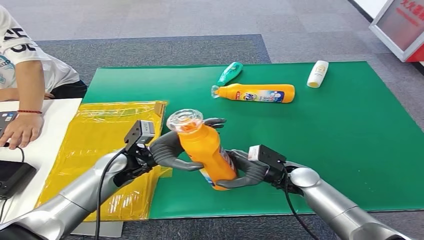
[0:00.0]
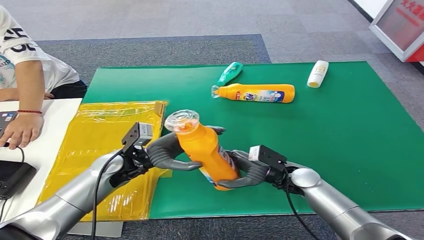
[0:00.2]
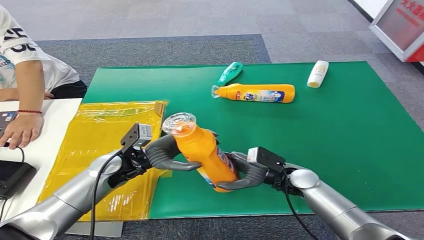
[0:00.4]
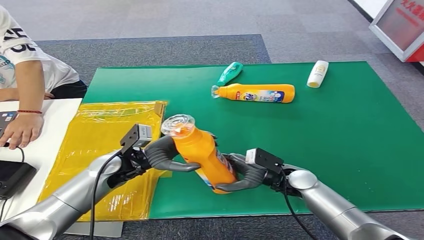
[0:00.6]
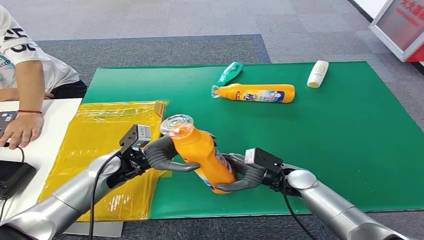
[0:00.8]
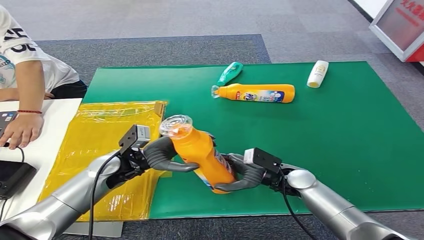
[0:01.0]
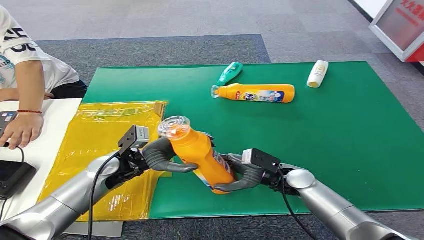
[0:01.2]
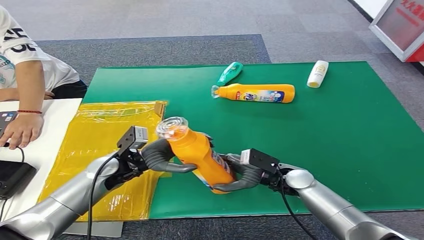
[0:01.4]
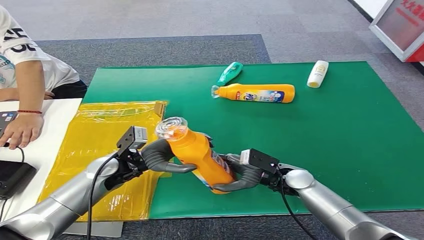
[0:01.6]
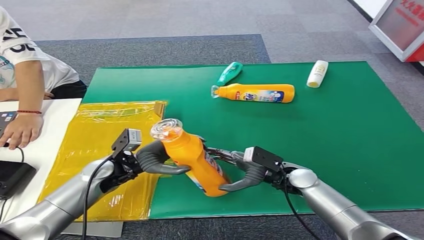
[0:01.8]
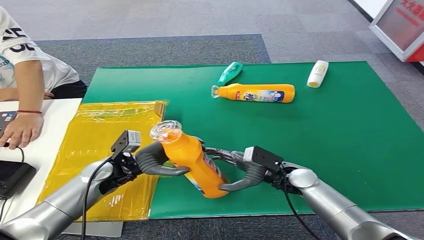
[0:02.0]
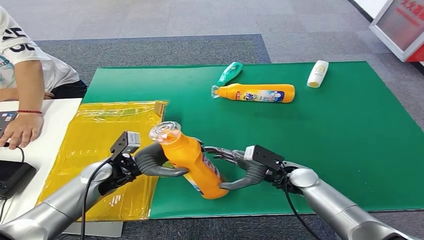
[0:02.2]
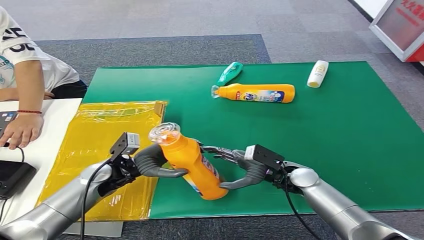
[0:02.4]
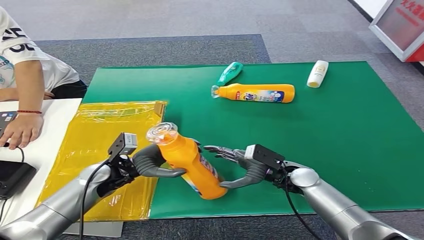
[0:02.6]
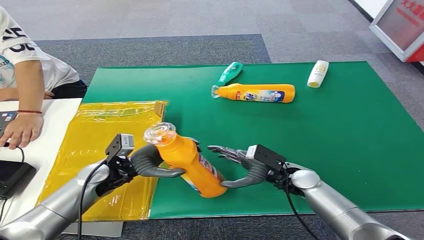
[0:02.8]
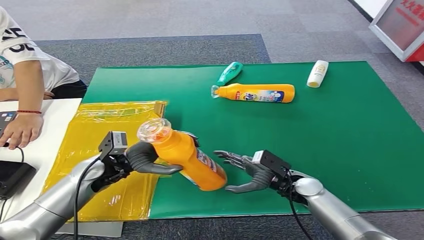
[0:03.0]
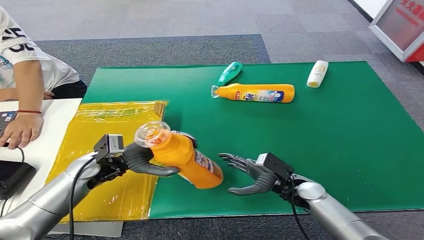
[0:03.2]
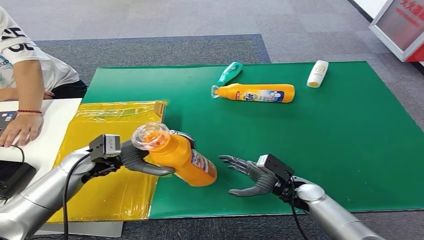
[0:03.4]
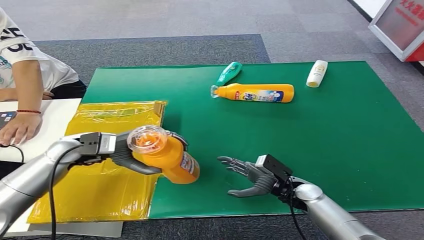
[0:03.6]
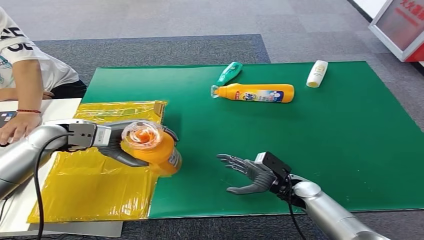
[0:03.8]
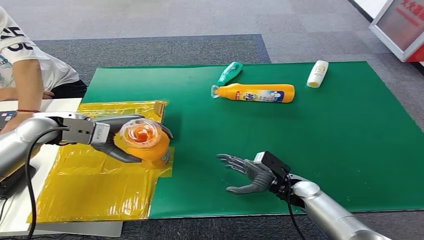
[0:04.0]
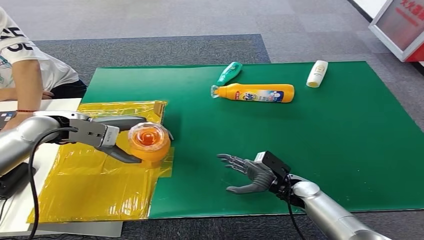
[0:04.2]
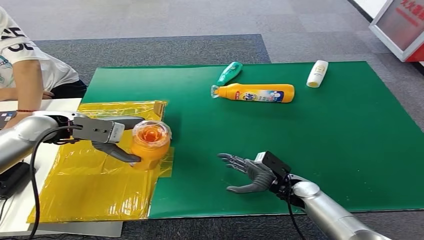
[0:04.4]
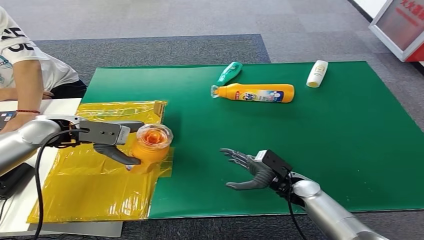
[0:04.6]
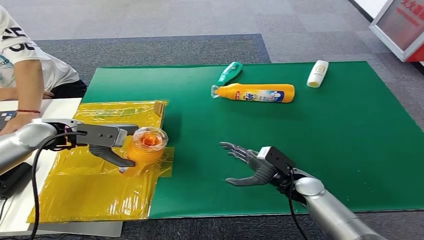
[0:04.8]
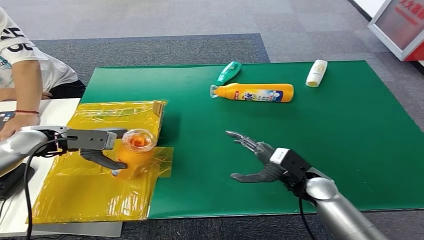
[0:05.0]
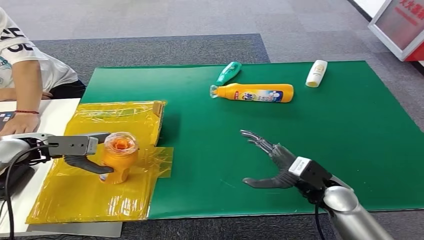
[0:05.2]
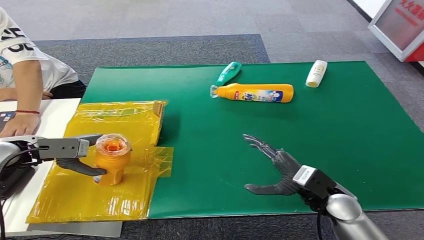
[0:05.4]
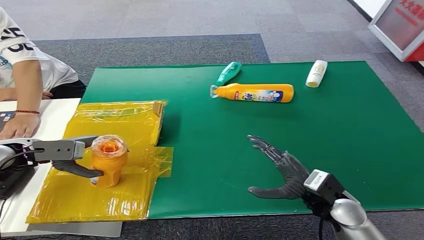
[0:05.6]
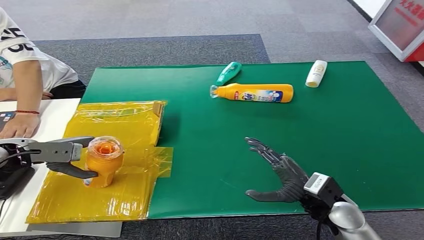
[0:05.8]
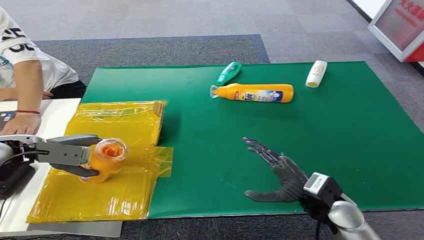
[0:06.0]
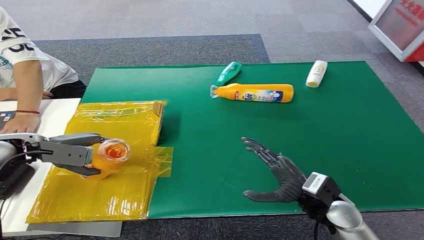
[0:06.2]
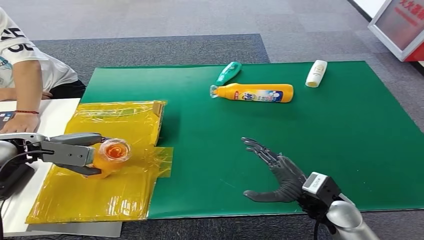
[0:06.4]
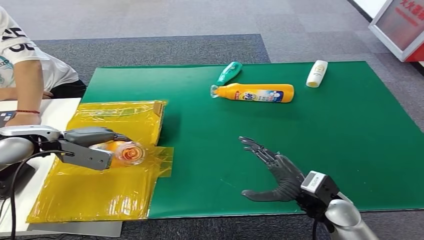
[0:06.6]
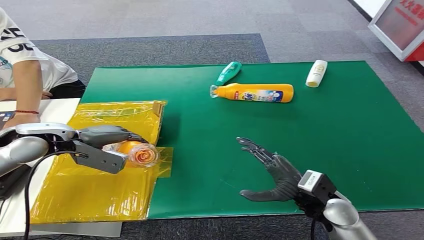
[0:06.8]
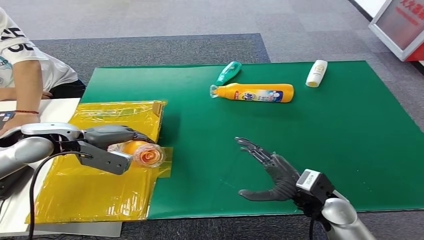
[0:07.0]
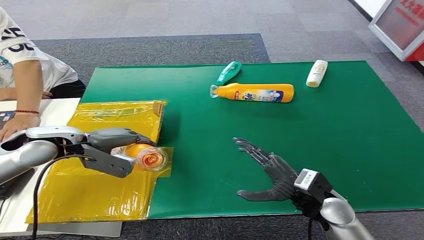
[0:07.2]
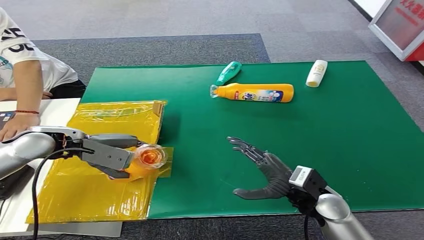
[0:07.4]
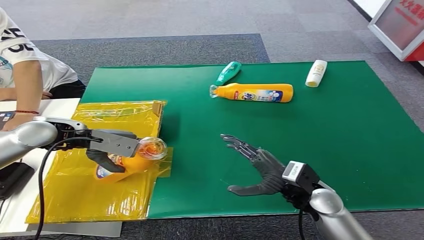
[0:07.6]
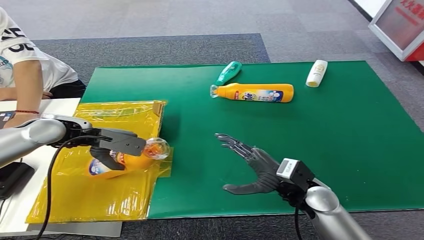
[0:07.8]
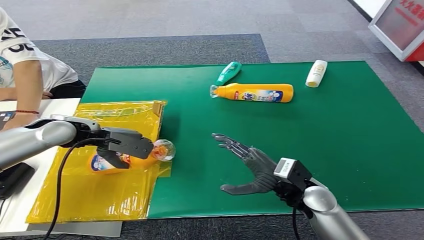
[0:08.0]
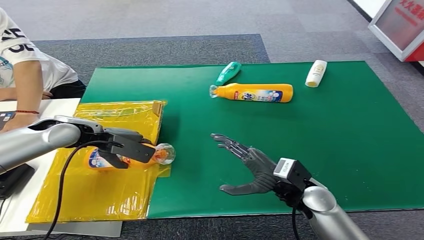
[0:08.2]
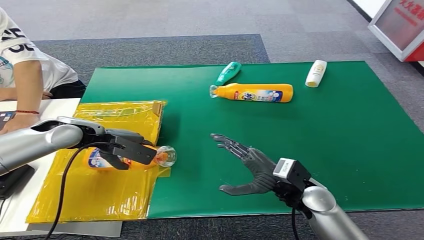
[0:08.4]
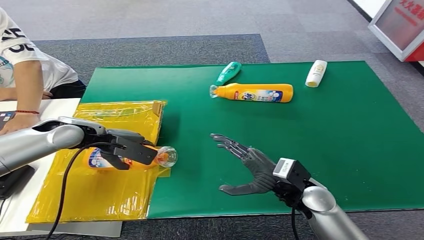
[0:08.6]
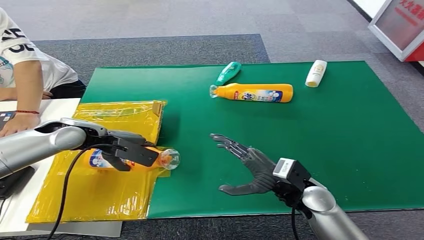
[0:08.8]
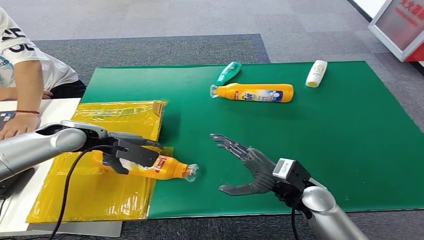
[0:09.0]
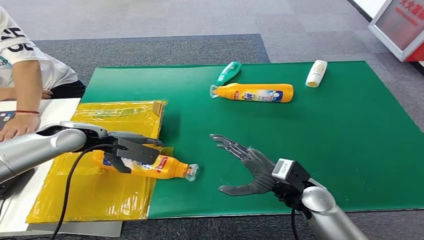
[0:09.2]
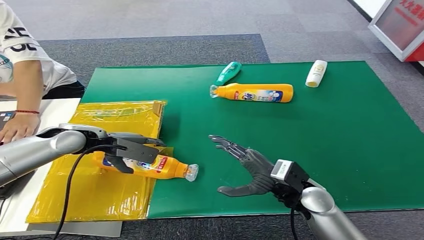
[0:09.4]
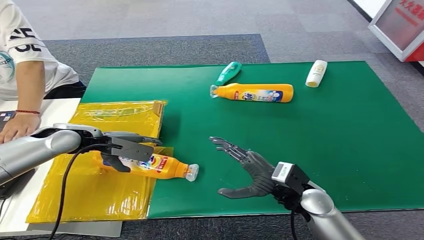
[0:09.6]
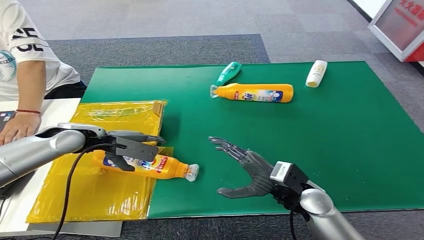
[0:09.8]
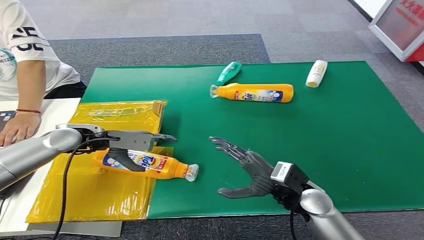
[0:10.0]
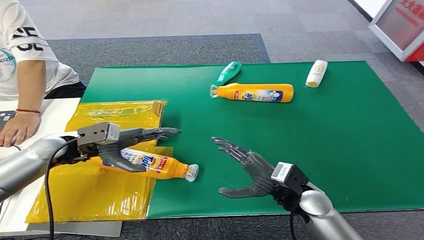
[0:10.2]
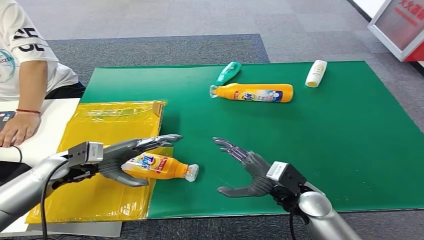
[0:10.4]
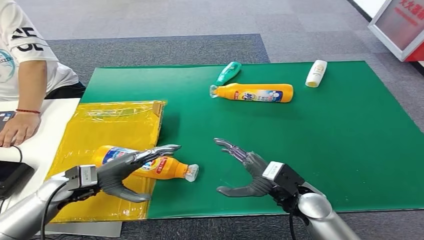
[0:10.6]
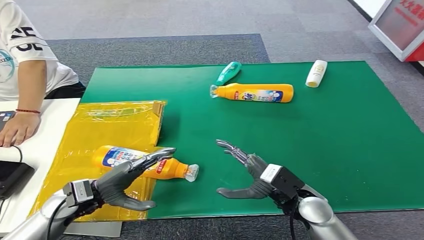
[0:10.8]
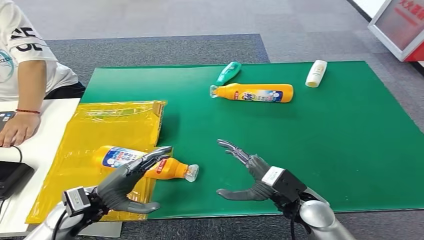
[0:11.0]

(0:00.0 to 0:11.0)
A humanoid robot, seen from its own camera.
Step, 0:00.0 - 0:10.8: Turn the bottle to the front side.
0:00.0 - 0:01.6: There are only small adjustments of the hands.
0:01.6 - 0:03.2: The right hand moves about 5 cm.
0:03.2 - 0:04.8: The left hand heads upward, to the left and forward, covering some 15 cm.
0:04.8 - 0:06.2: The right hand is displaced backward and upward by some 10 cm. Meanwhile the left hand shifts approximately 10 cm to the left.
0:06.2 - 0:07.8: The left hand moves to the right, about 10 cm. The right hand moves approximately 5 cm.
0:07.8 - 0:09.4: The hands move only a little.
0:09.4 - 0:11.0: The left hand is displaced backward and downward by approximately 20 cm.

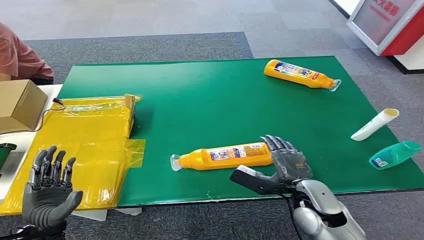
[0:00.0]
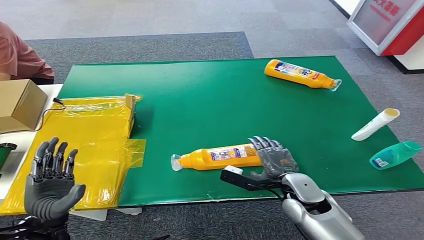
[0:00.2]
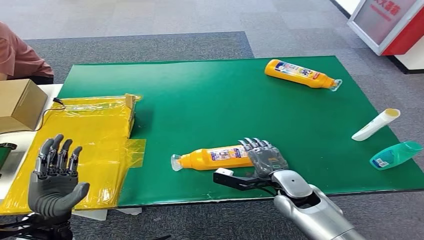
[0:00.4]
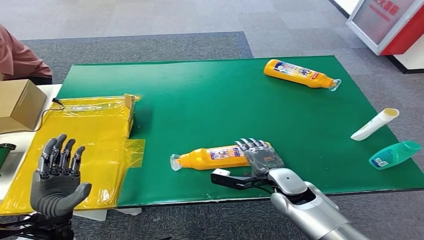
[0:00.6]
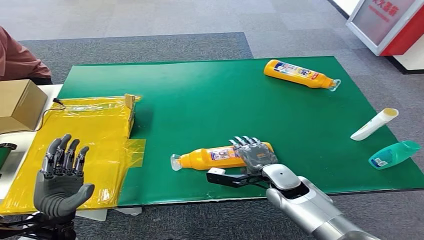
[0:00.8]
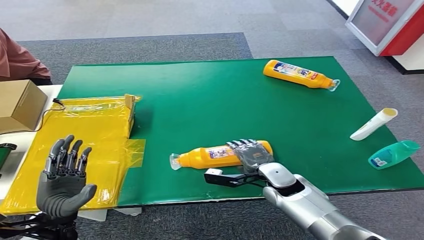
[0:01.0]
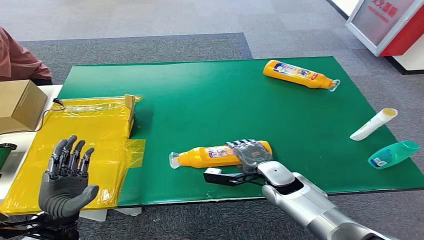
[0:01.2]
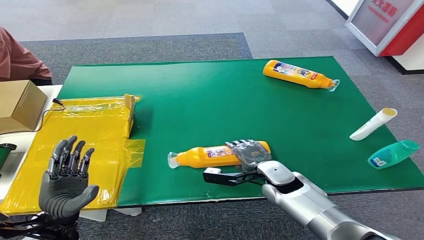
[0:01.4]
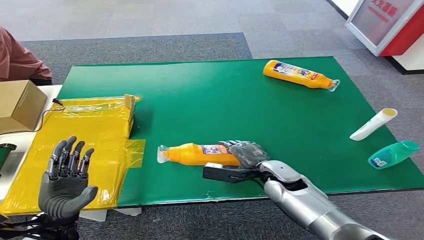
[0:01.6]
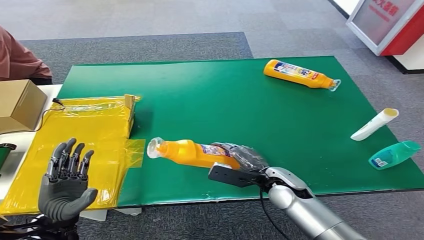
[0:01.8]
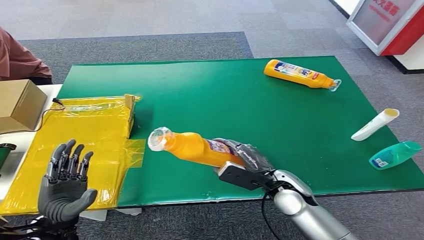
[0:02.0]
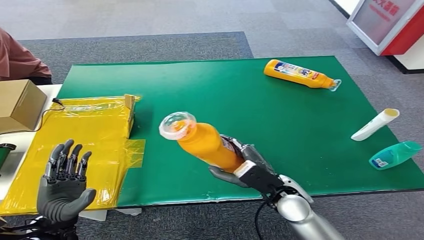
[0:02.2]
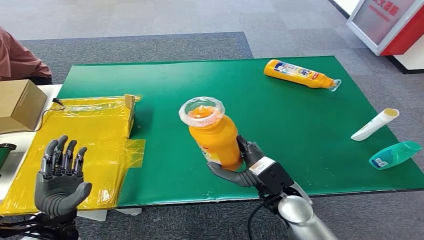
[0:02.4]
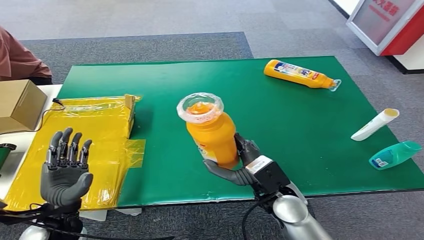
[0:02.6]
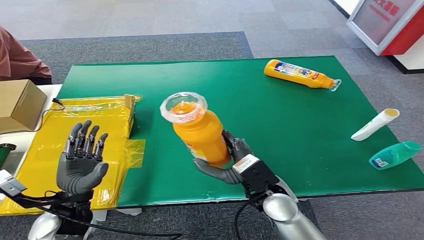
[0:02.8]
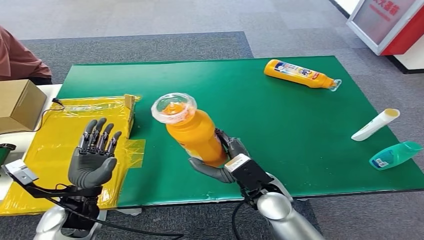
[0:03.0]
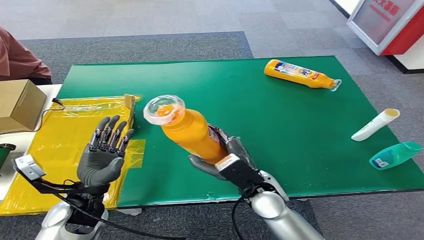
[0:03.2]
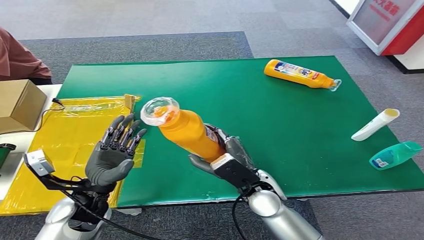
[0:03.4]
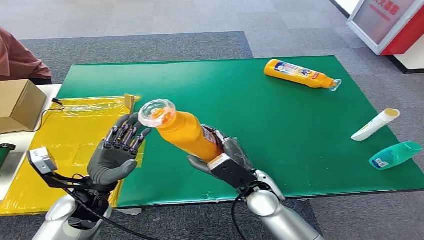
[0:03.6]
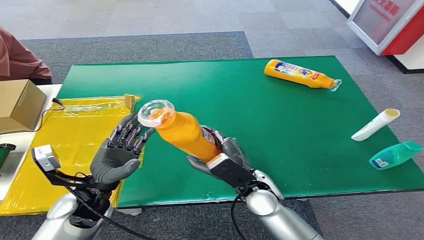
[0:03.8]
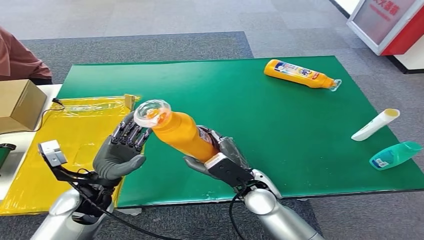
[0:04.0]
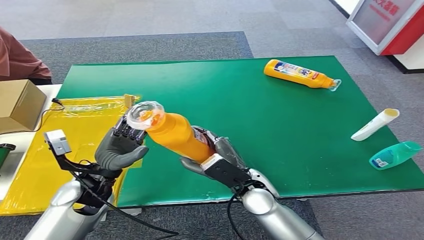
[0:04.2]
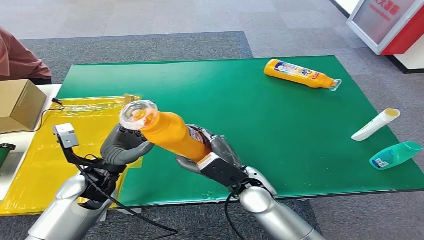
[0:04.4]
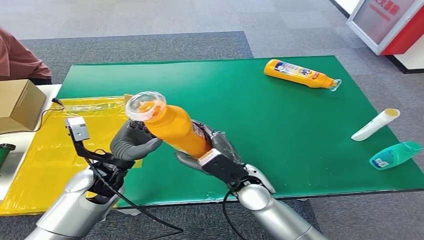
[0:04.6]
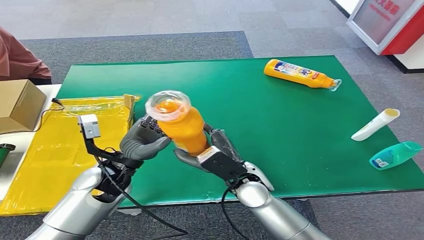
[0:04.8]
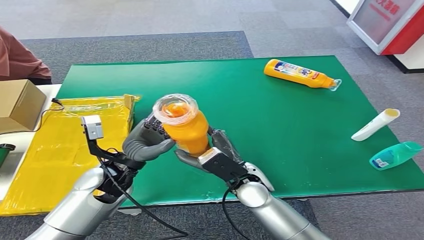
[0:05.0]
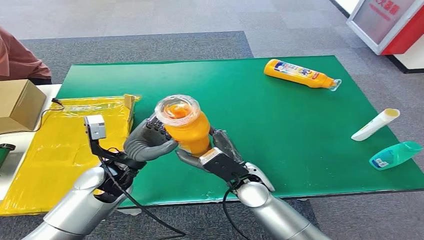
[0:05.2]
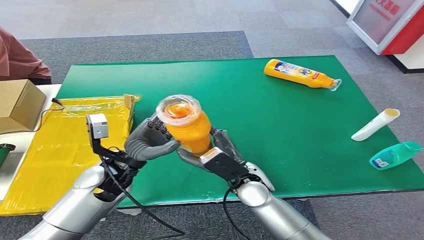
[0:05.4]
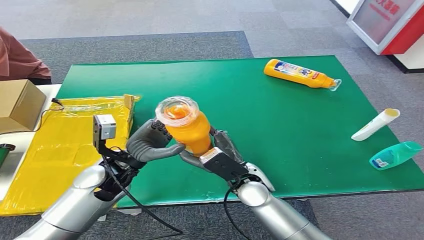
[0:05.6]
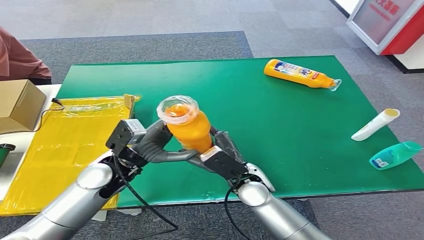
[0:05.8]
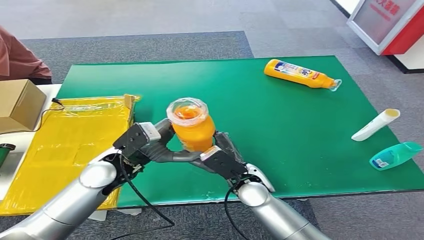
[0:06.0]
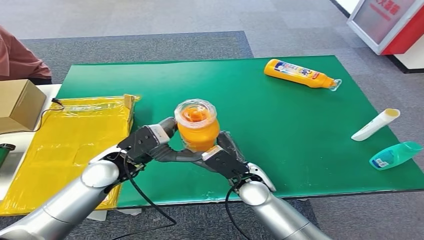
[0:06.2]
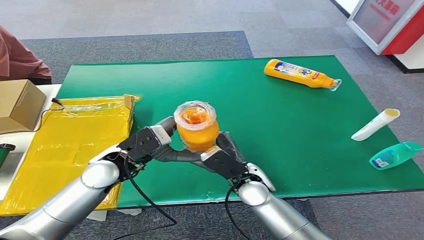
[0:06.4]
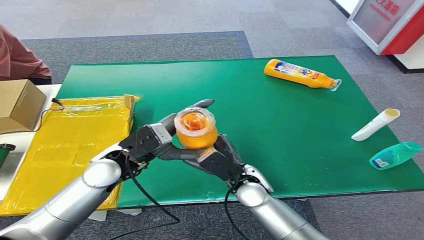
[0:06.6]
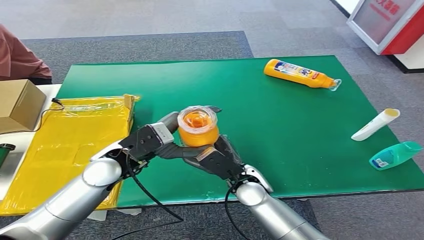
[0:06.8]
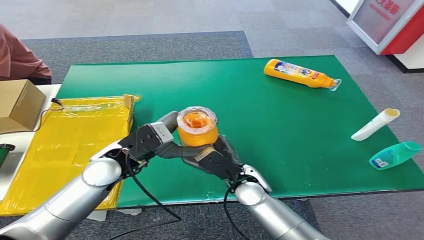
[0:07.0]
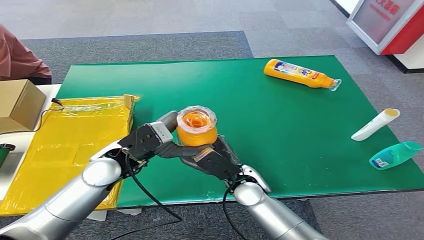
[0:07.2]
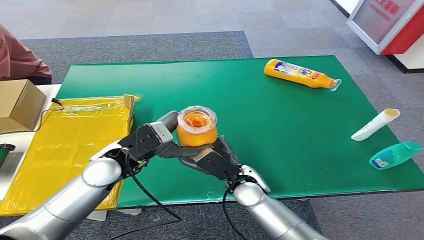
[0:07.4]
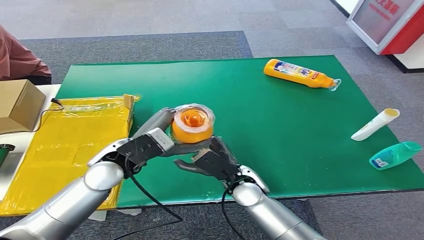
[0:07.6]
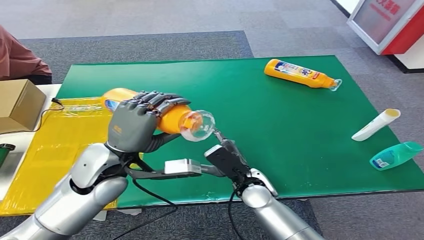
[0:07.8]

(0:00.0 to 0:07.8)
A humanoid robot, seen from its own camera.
Step, 0:00.0 - 0:02.0: Pick up the bottle from the table.
0:03.2 - 0:04.6: The left hand heads forward, covering about 5 cm.
0:04.6 - 0:06.2: The left hand moves approximately 5 cm.
